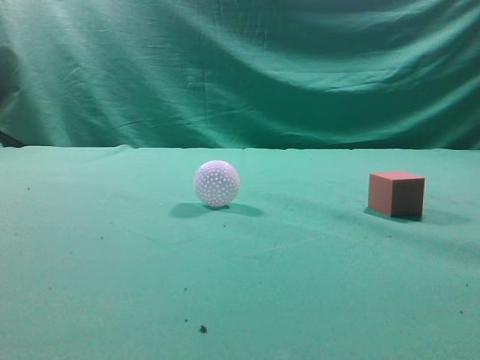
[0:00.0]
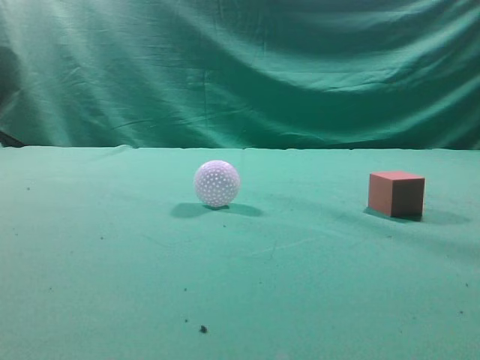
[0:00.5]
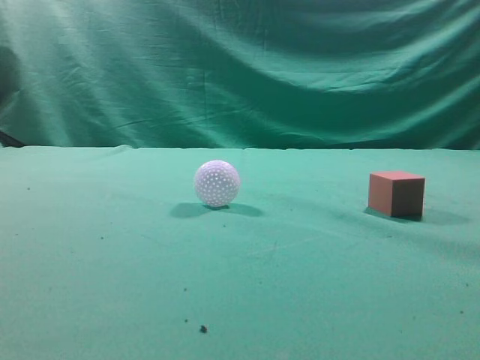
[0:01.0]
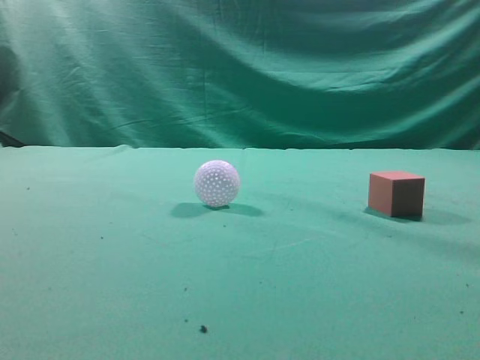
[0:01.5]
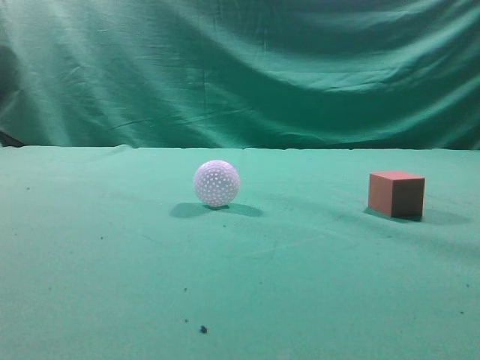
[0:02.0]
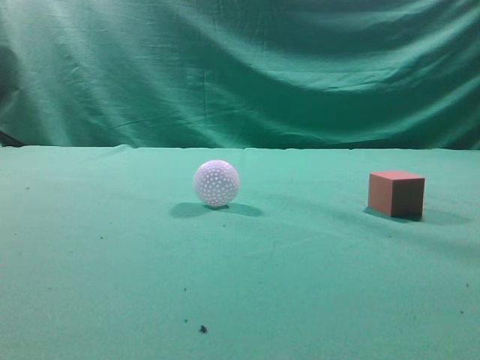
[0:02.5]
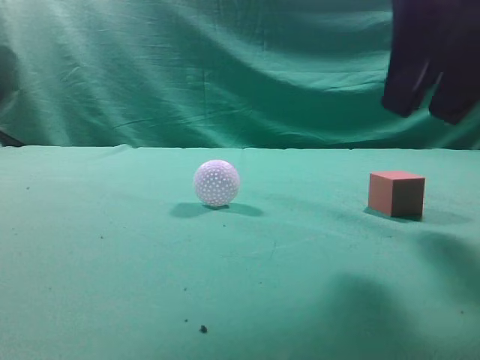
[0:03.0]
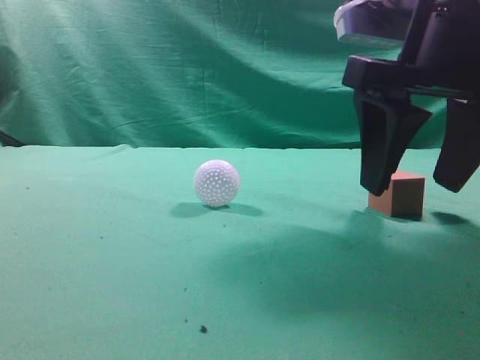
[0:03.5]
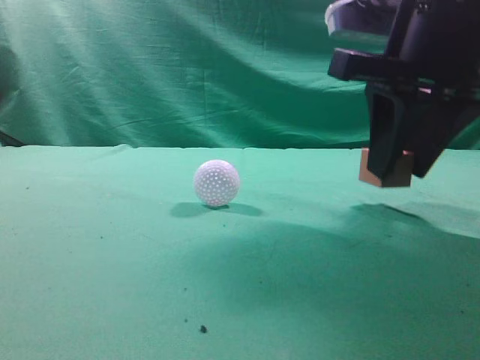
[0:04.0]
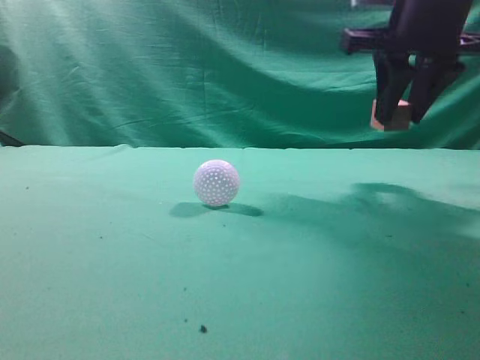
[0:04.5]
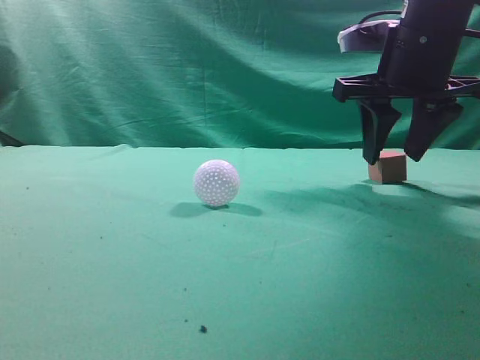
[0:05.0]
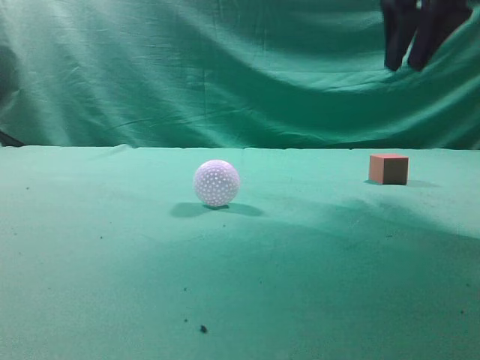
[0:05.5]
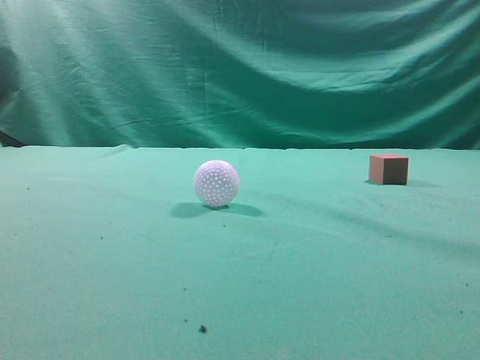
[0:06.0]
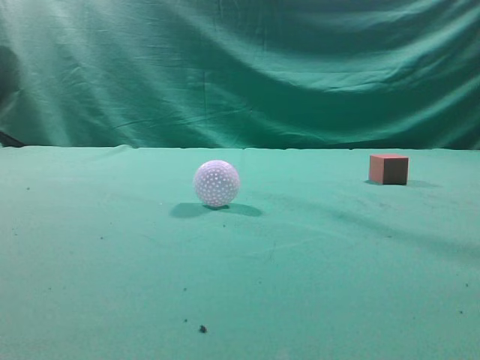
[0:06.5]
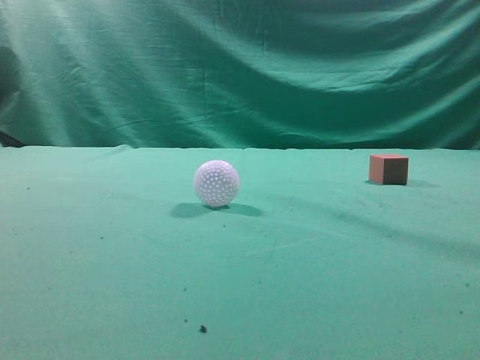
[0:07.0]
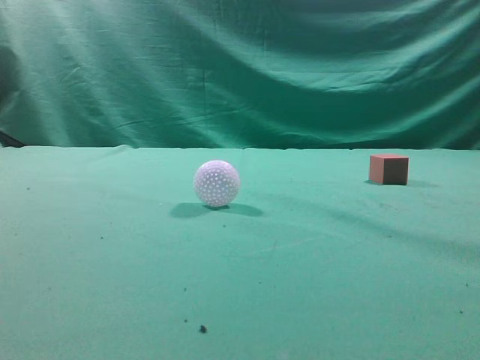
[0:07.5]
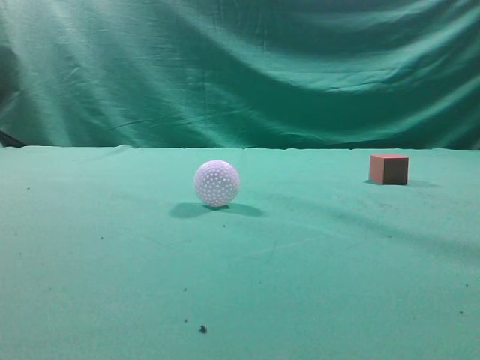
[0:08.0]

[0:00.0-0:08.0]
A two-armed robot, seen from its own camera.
Task of the whole recording: pick up the cube block and place it in another position on the table.
Step, 0:00.0 to 0:03.5: Pick up the small cube.
Step, 0:04.5 to 0:05.0: Place the small cube on the ahead of the table.
0:02.0 to 0:04.0: The right gripper moves forward and to the left, about 25 cm, and opens up.
0:04.0 to 0:06.0: The right gripper is displaced upward, backward and to the right by some 20 cm, and closes up.
